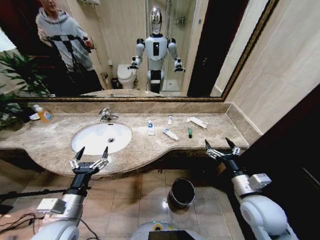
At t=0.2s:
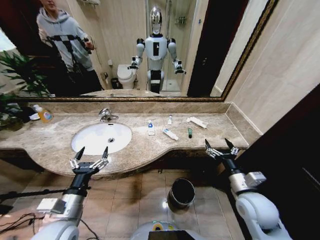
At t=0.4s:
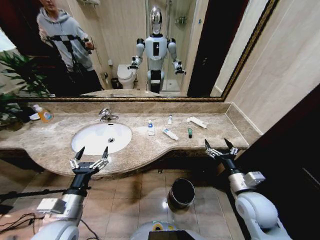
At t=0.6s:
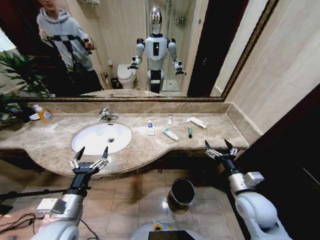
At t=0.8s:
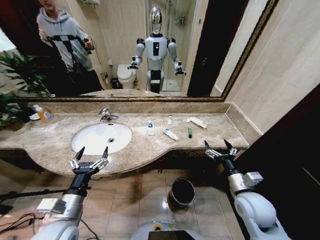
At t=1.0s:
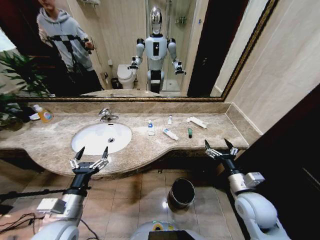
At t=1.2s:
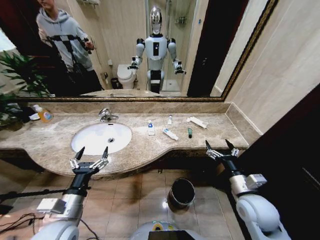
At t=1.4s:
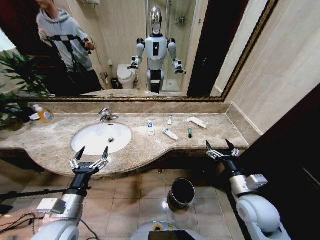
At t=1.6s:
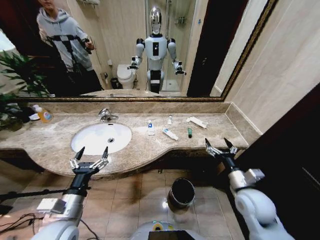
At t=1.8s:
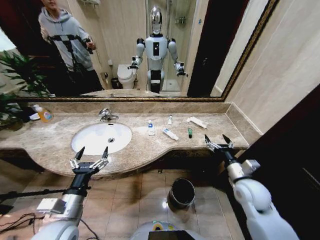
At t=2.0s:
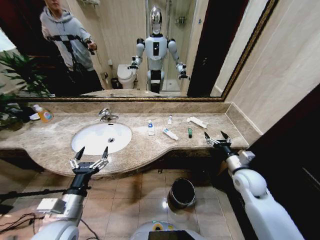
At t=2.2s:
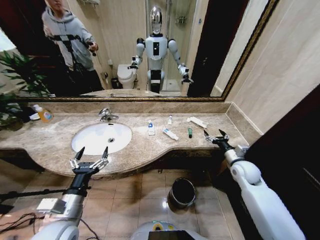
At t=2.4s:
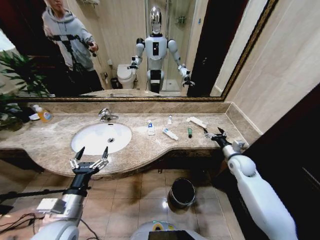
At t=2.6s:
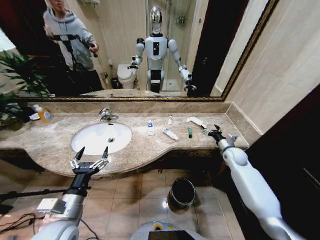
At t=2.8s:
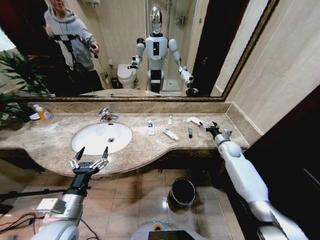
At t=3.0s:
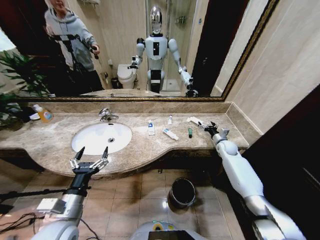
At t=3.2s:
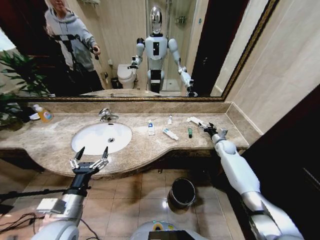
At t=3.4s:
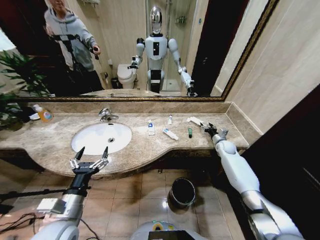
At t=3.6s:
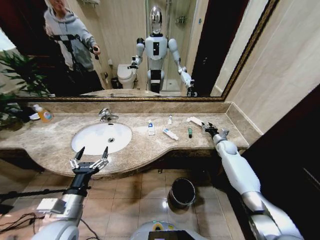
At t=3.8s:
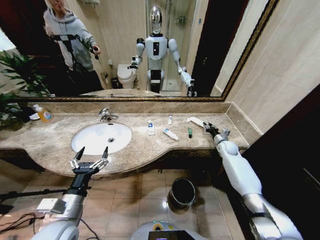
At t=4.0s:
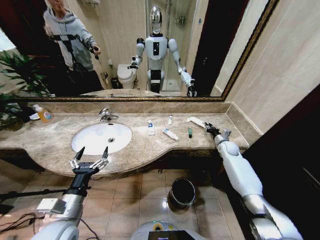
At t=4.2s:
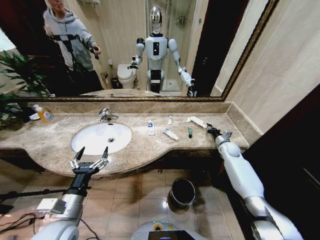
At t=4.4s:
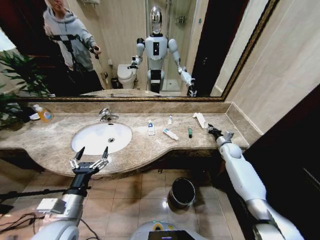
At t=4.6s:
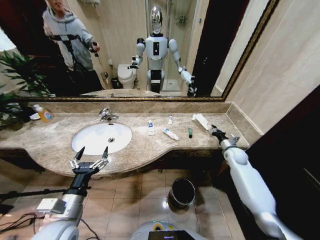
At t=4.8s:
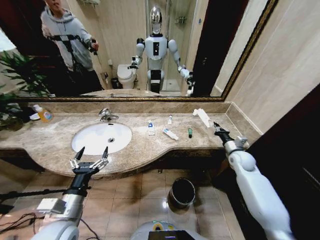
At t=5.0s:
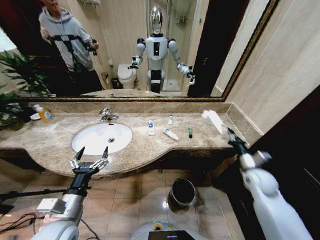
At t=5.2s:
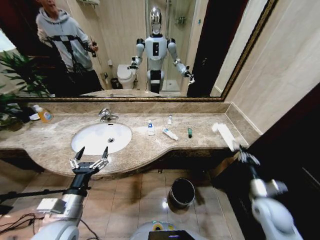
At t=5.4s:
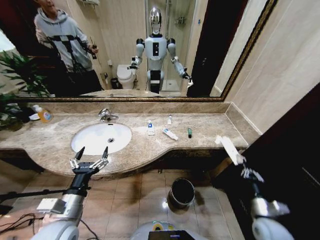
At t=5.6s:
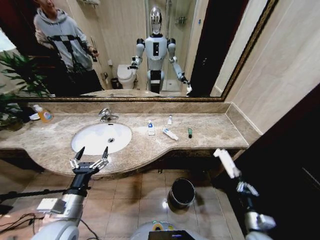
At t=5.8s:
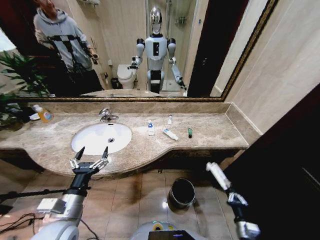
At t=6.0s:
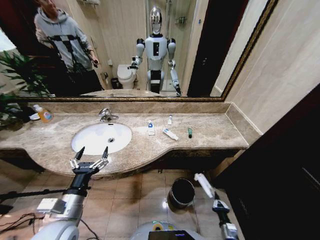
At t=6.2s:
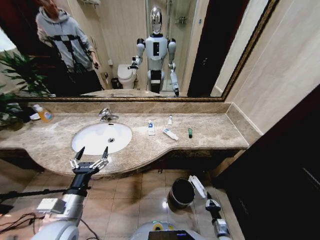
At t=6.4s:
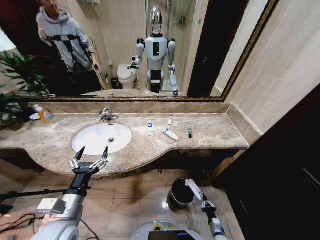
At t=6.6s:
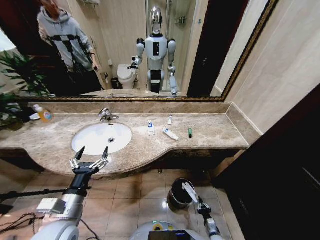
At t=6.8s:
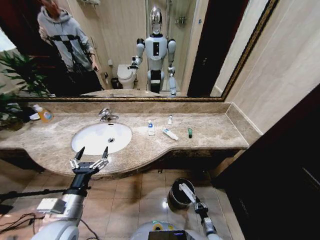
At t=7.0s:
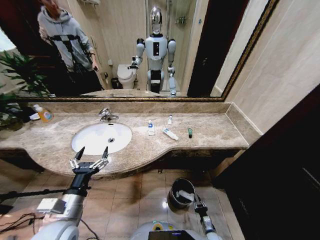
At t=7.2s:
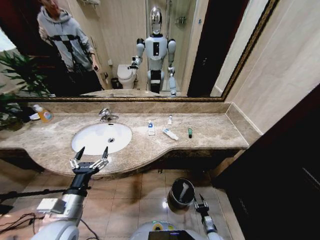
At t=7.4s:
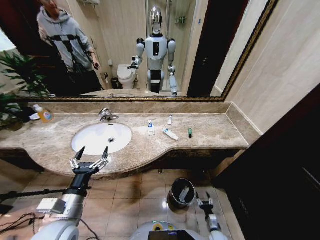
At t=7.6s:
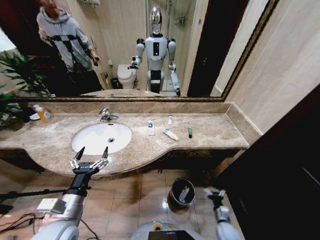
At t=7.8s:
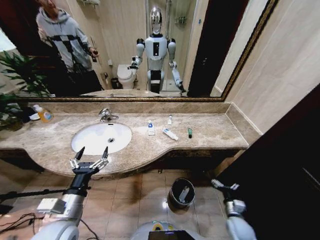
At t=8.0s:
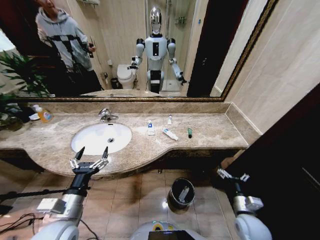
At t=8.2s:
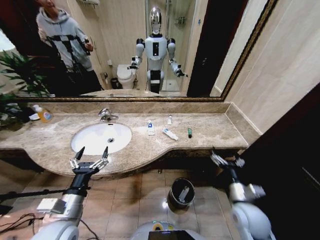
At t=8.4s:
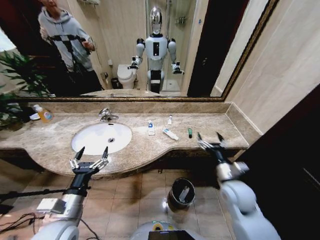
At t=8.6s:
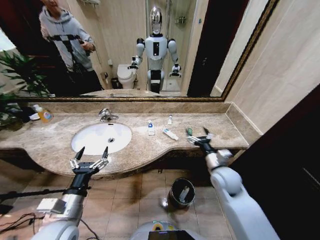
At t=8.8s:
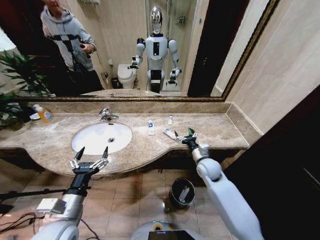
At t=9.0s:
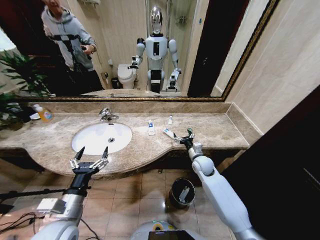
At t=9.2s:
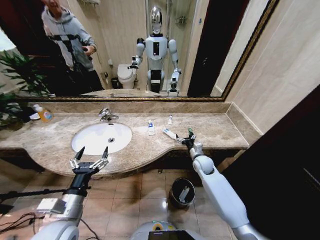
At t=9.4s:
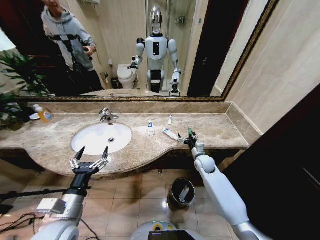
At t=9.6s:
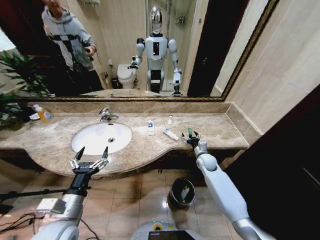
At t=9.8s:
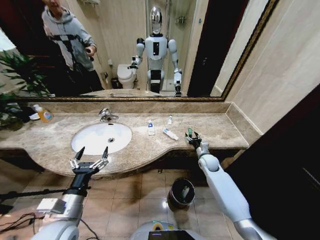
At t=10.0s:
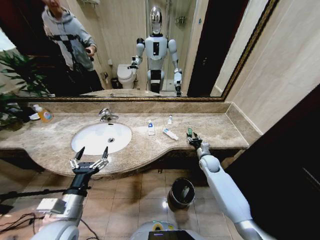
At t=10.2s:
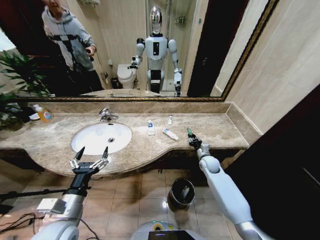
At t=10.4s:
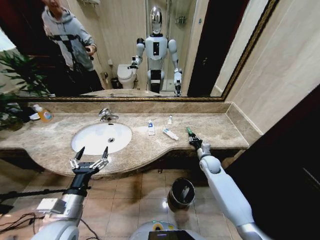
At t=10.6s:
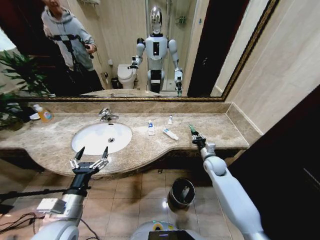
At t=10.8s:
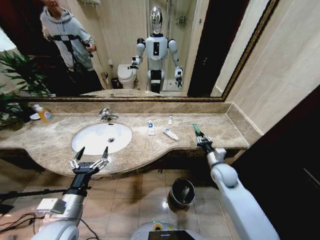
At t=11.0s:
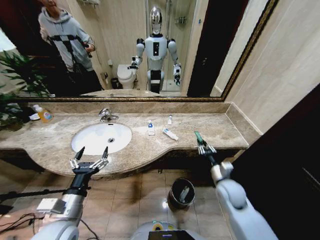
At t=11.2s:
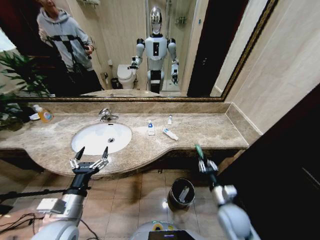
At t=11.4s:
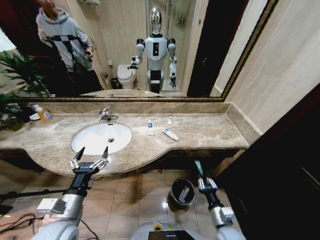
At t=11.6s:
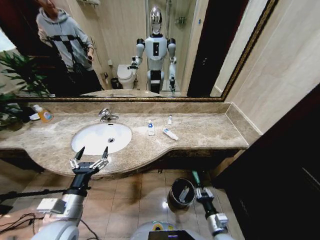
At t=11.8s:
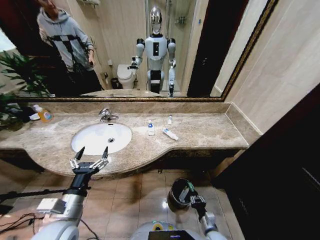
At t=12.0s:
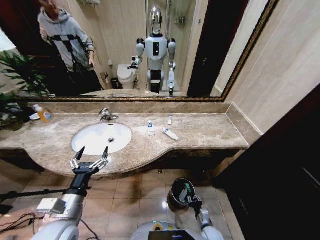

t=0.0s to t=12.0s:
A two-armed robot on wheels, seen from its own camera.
Task of the whole recording: Pick up the trash from the sink and place it in the trash bin.
t=1.6s to t=3.0s: The right gripper shifts approximately 30 cm forward.
t=3.0s to t=4.4s: The right gripper closes.
t=4.4s to t=6.0s: The right gripper moves backward and downward, some 50 cm.
t=6.0s to t=7.6s: The right gripper heads forward, covering approximately 5 cm, reaches roughly 10 cm downward, then returns, and opens.
t=7.6s to t=9.0s: The right gripper goes roughly 35 cm upward and forward.
t=9.0s to t=10.4s: The right gripper goes some 5 cm to the right, and closes up.
t=10.4s to t=12.0s: The right gripper travels backward and downward by approximately 35 cm.

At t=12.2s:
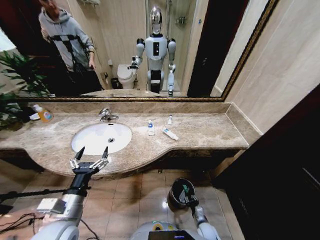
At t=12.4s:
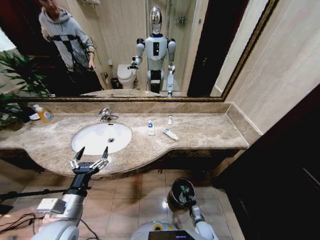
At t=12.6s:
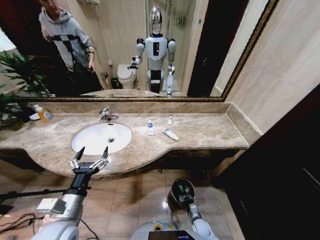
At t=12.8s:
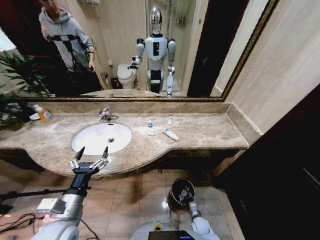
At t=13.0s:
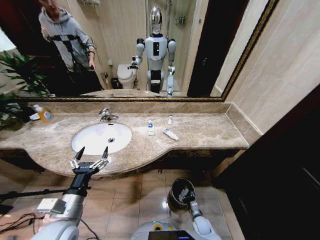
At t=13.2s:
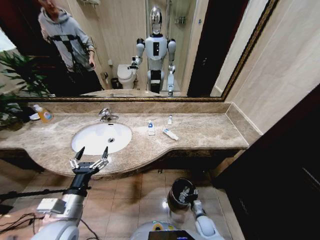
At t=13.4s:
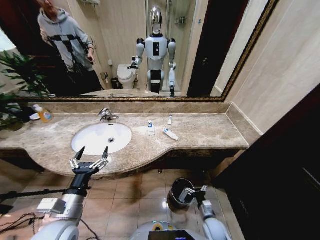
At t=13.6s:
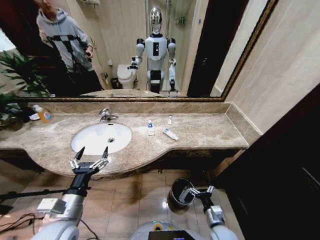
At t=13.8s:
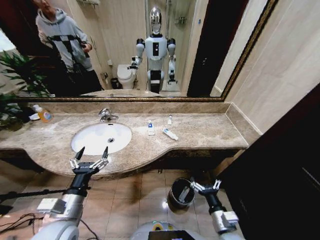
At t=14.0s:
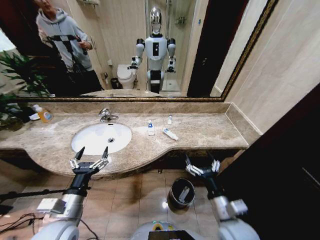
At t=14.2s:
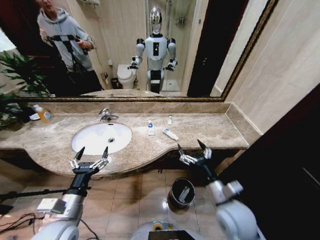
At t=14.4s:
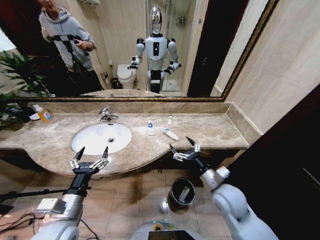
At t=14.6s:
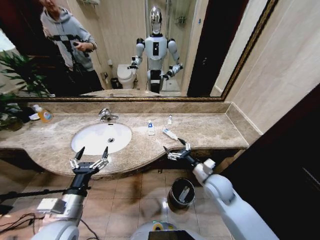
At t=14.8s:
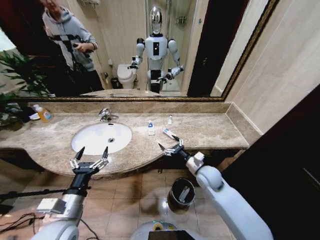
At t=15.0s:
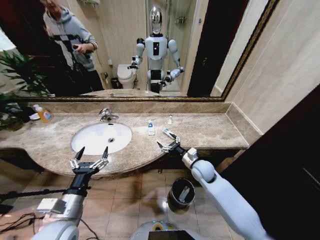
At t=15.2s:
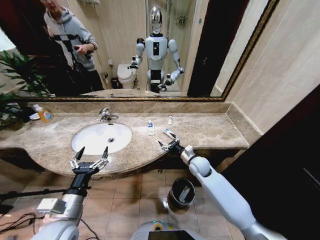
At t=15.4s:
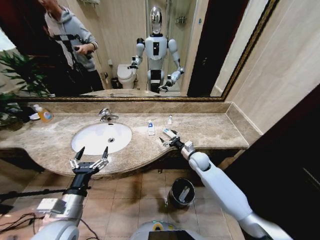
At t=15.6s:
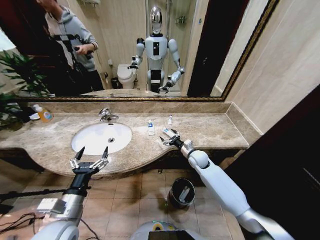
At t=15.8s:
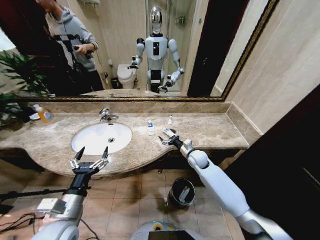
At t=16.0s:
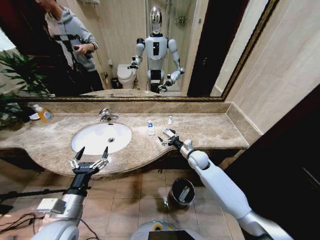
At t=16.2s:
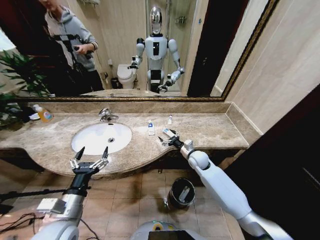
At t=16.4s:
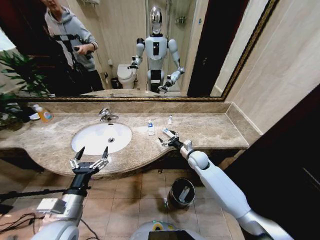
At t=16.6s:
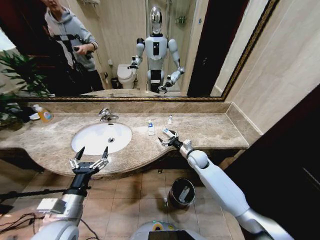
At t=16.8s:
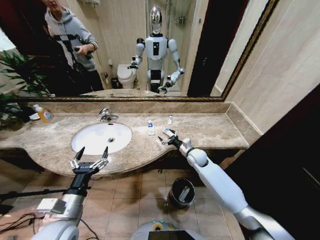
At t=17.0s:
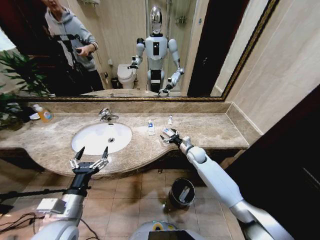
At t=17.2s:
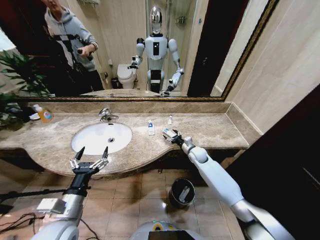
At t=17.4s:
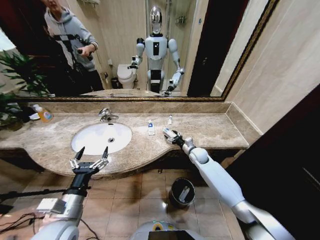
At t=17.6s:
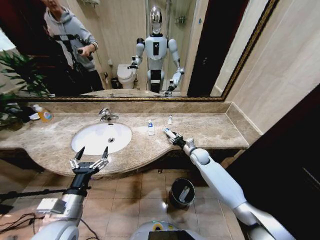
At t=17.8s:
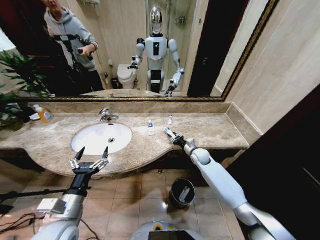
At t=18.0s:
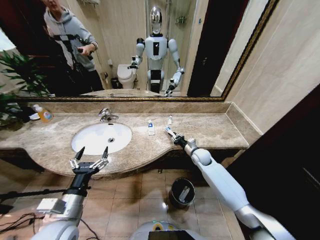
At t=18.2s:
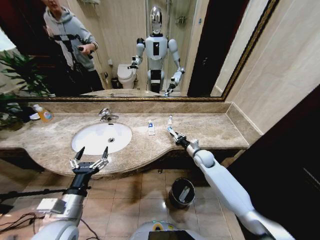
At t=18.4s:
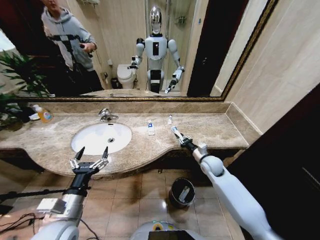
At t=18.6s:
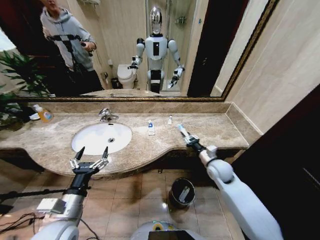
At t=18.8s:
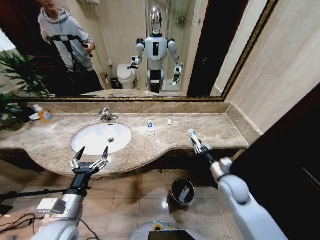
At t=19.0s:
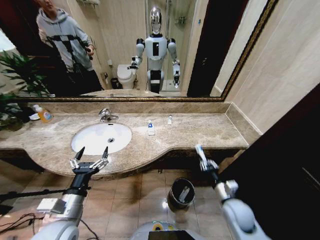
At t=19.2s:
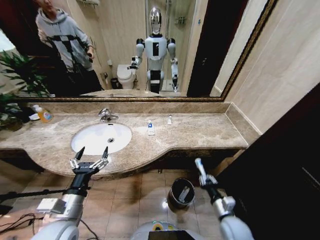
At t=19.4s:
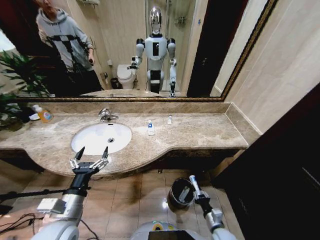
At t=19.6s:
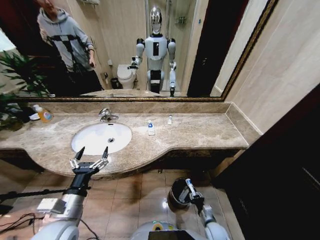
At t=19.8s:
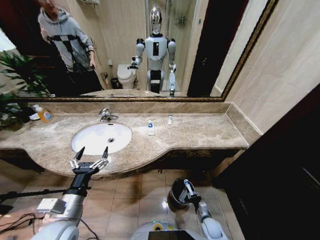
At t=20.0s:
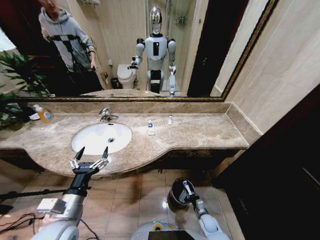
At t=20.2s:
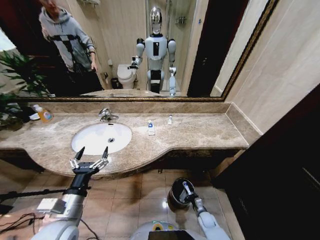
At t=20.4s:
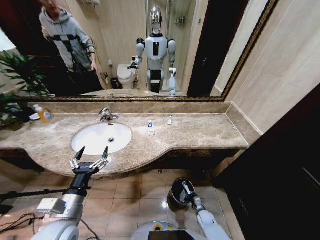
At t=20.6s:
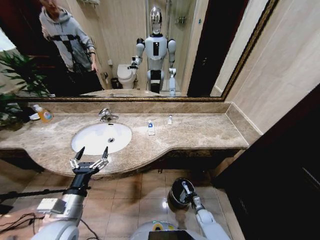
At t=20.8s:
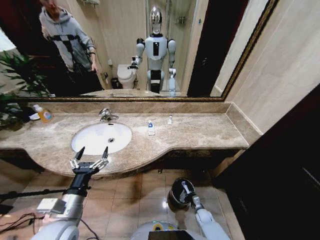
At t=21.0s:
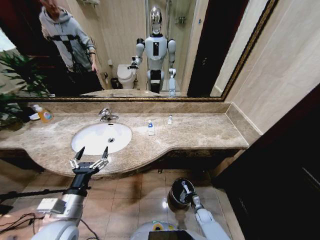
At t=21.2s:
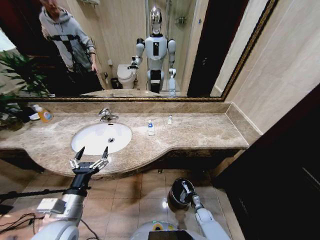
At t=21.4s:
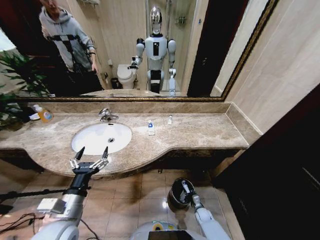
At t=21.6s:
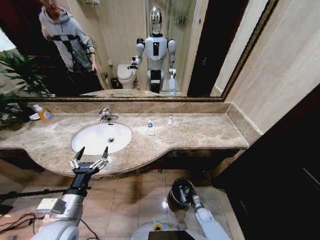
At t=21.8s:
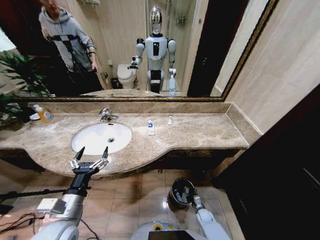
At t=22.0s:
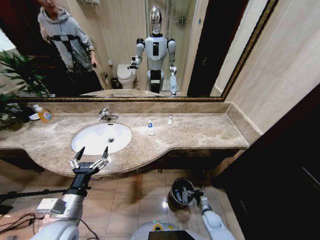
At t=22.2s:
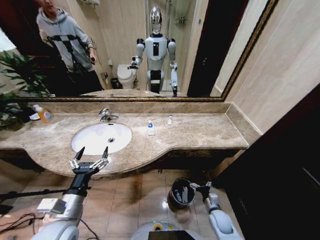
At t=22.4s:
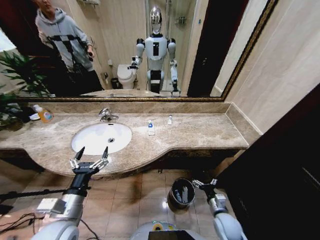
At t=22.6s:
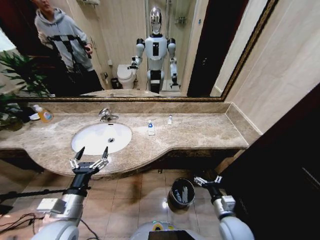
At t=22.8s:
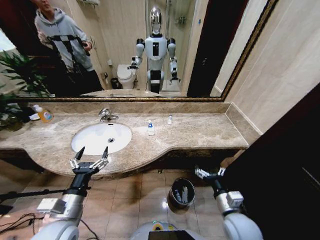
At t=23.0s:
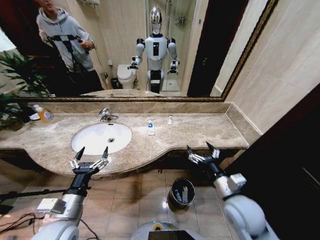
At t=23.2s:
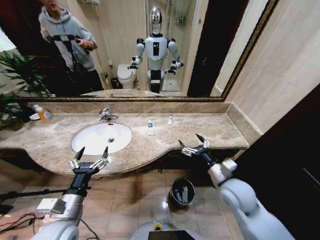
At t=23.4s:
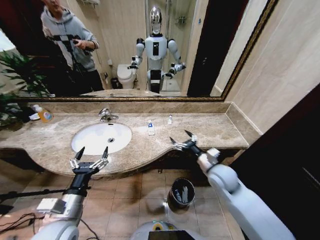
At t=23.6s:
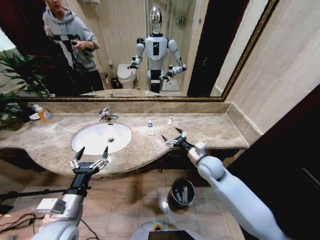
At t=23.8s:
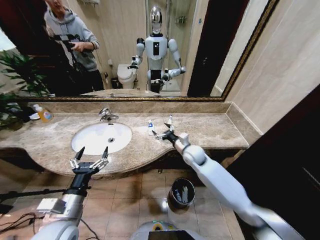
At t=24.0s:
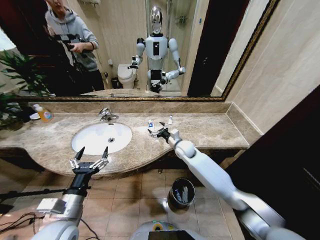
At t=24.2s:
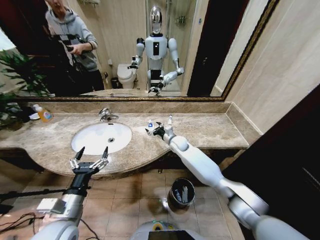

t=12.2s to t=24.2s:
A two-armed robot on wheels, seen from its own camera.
Task of the whole recording: Pick up the trash from the sink and place it in the trash bin.
t=12.2s to t=13.8s: The right gripper goes some 25 cm upward, and opens.
t=13.8s to t=15.2s: The right gripper heads forward, covering some 30 cm.
t=15.2s to t=16.6s: The grippers stay close to where they were, moving slightly.
t=16.6s to t=18.2s: The right gripper closes.
t=18.2s to t=19.8s: The right gripper goes roughly 35 cm downward and backward.
t=19.8s to t=21.2s: The right gripper heads downward and forward, covering approximately 10 cm.
t=21.2s to t=22.6s: The right gripper goes approximately 30 cm upward, and opens up.
t=22.6s to t=24.2s: The right gripper goes about 40 cm forward and to the left.
